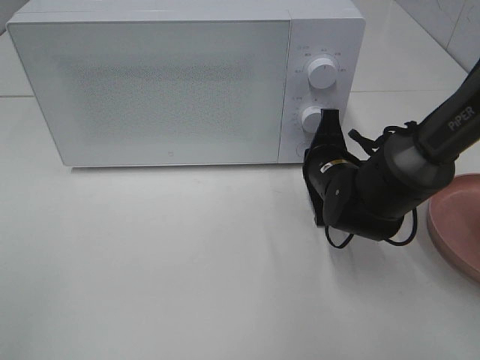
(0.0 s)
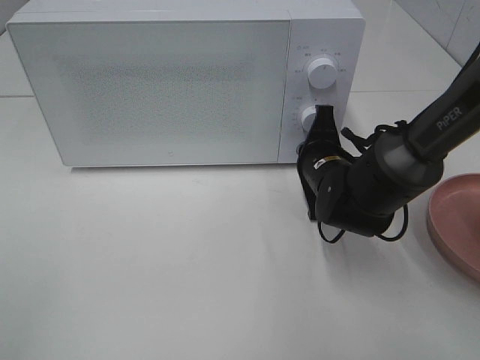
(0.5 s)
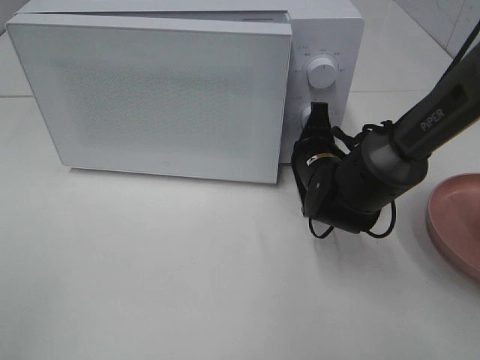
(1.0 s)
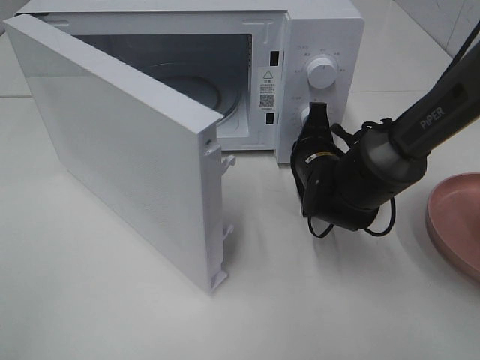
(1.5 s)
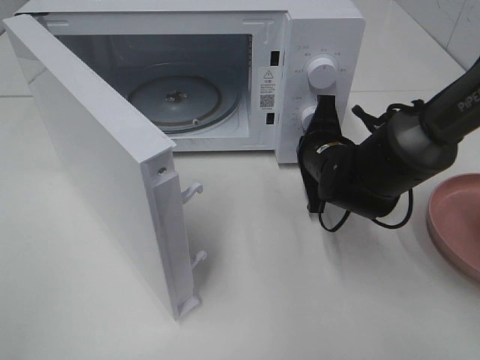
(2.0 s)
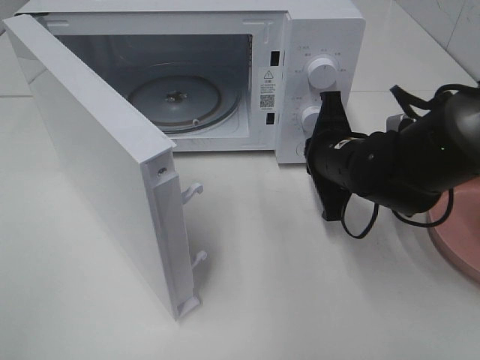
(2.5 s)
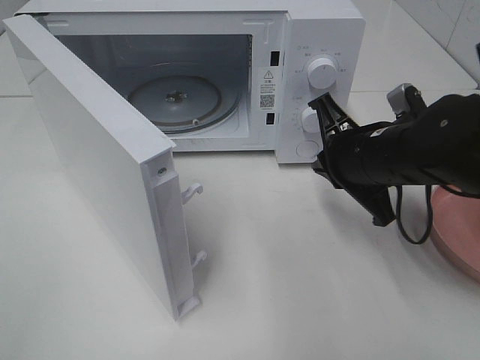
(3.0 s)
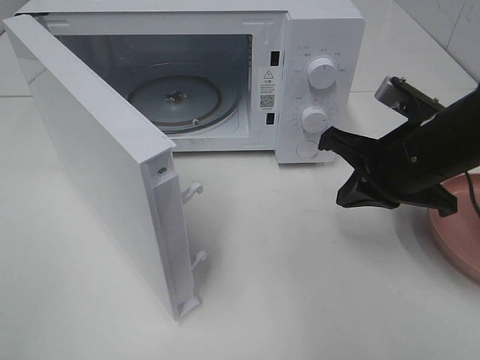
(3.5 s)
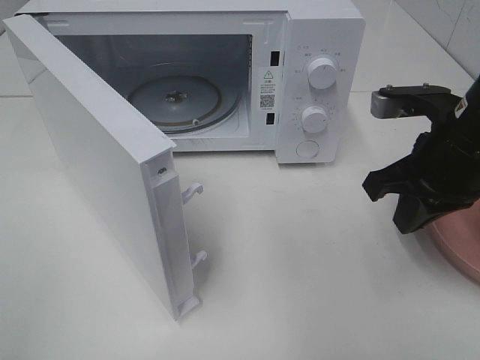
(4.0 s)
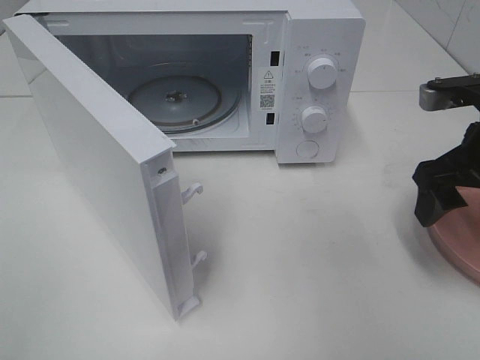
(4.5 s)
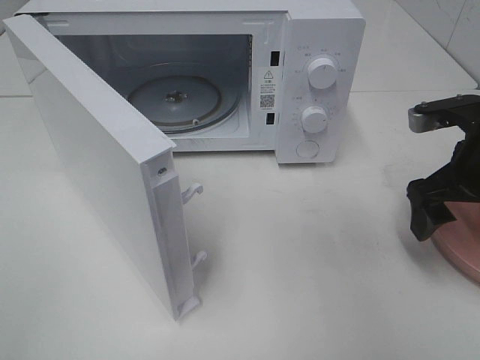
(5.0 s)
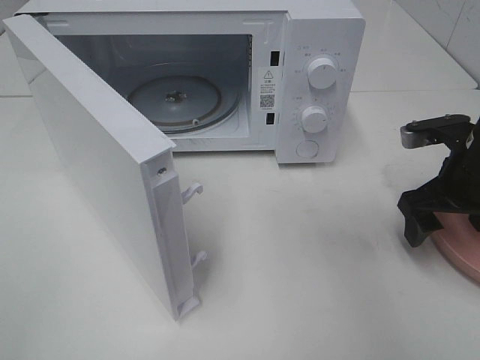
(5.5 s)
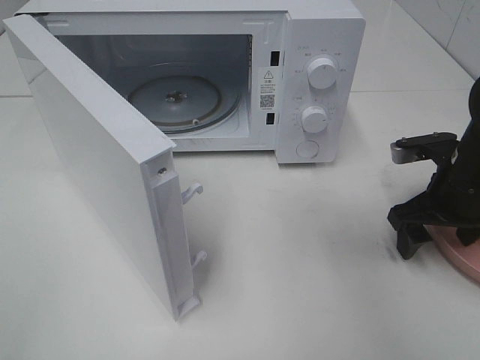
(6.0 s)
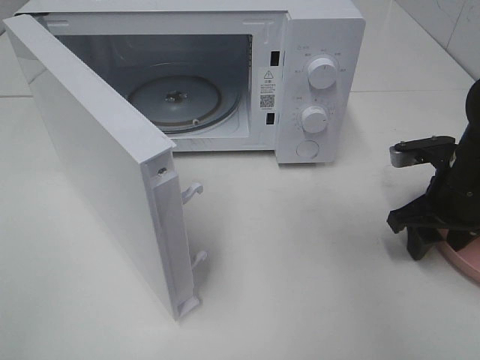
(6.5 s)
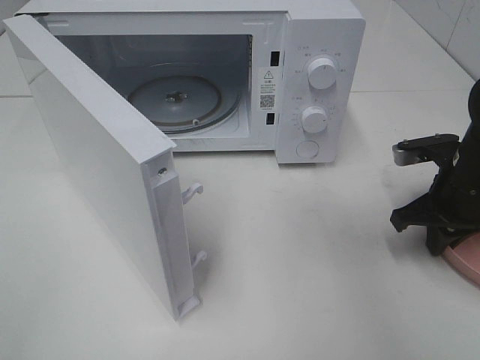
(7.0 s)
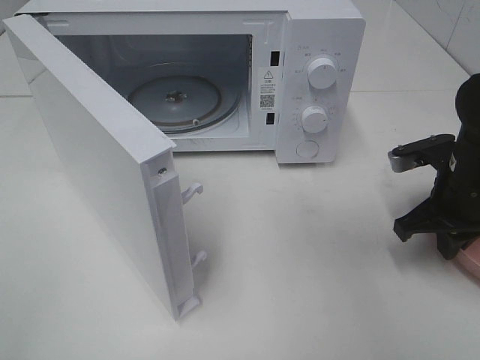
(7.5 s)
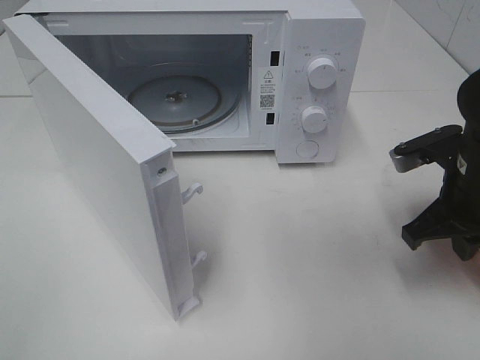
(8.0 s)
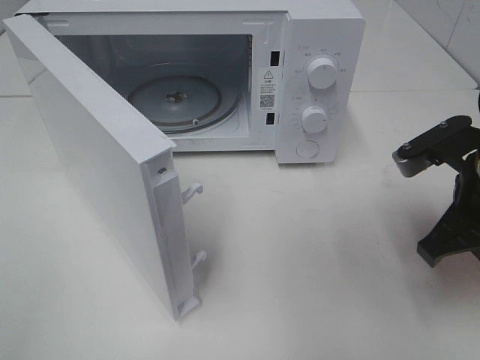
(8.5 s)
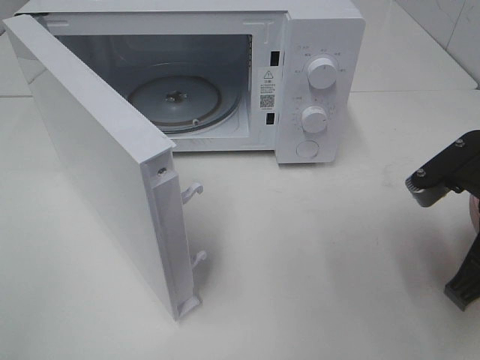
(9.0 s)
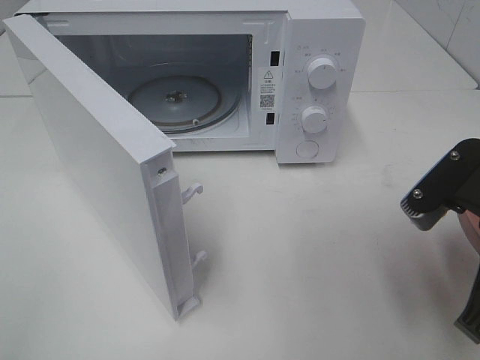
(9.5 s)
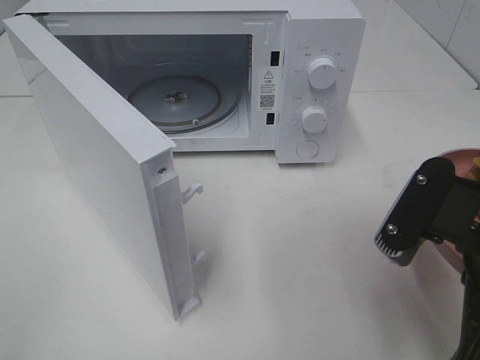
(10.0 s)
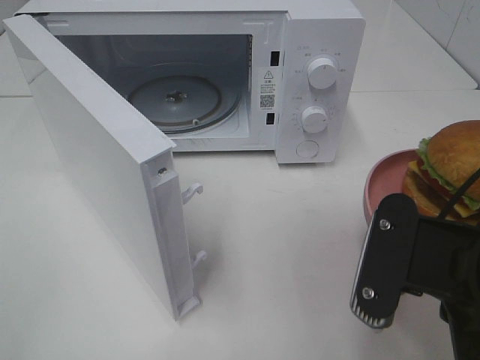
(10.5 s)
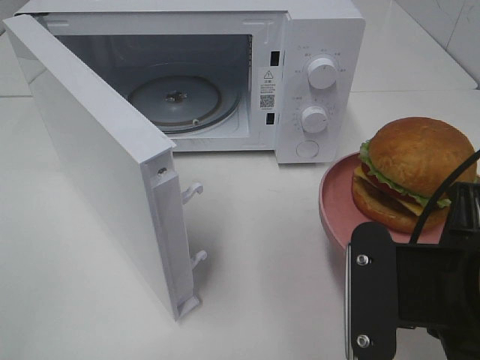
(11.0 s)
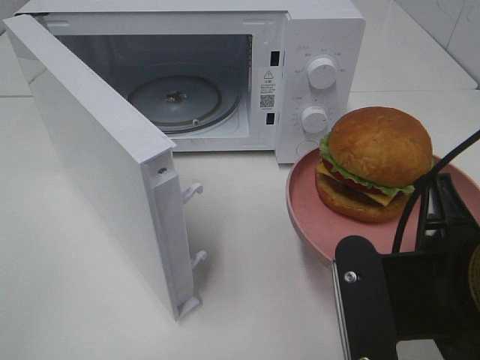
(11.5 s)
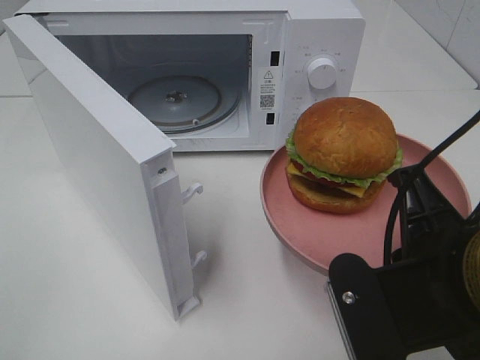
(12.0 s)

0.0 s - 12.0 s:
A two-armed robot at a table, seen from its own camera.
Task of the whole recording: Heat the burger.
Step, 0.0 s - 2.0 s: Right hand: press the switch.
Step, 2.5 s - 7.0 s: Right hand: grab the plate with the hamburger.
2.0 s - 4.0 s: The right gripper heads upward, backward and to the right, covering about 15 cm.
4.0 s - 6.0 s: The right gripper goes roughly 10 cm downward and to the right, and opens.
6.0 s - 8.0 s: The right gripper shifts by approximately 5 cm, and closes up.
8.0 s - 10.0 s: The right gripper goes roughly 15 cm backward and to the left.
10.0 s - 12.0 s: The right gripper moves roughly 5 cm.

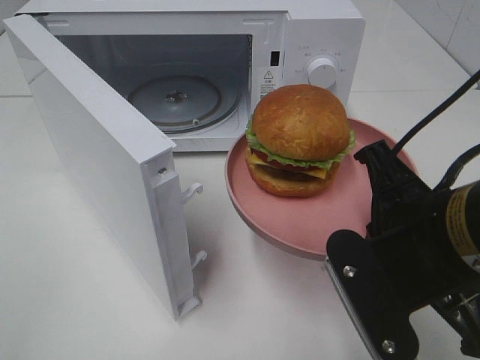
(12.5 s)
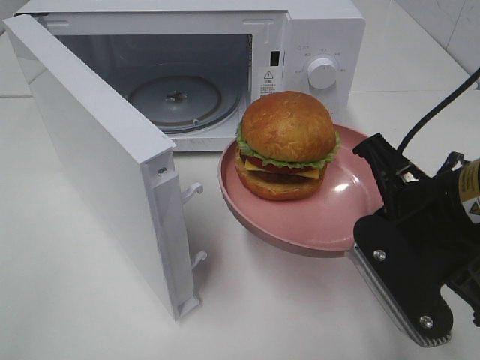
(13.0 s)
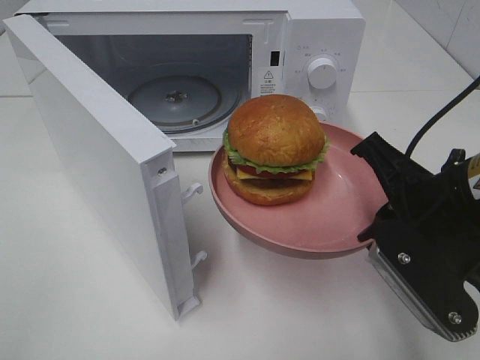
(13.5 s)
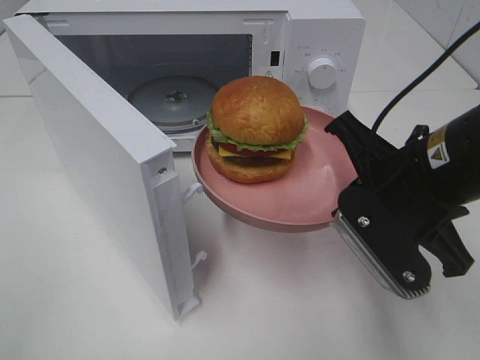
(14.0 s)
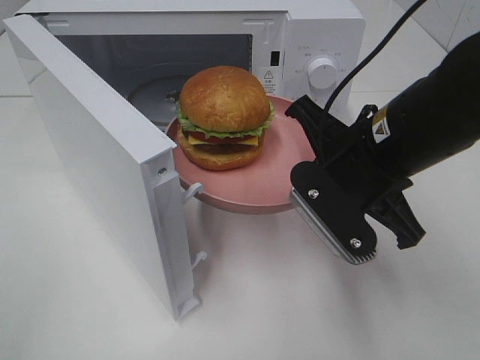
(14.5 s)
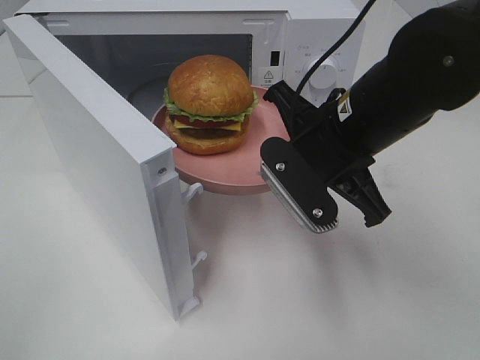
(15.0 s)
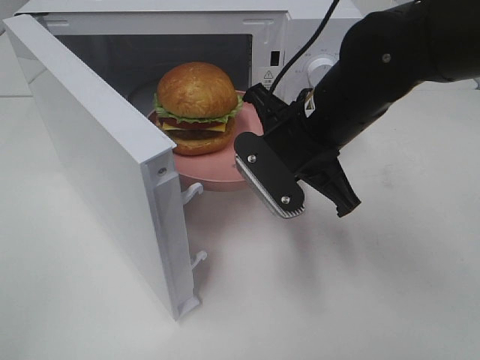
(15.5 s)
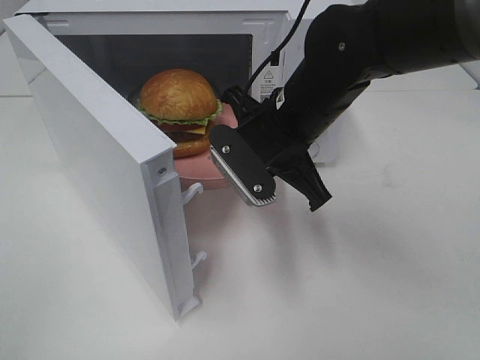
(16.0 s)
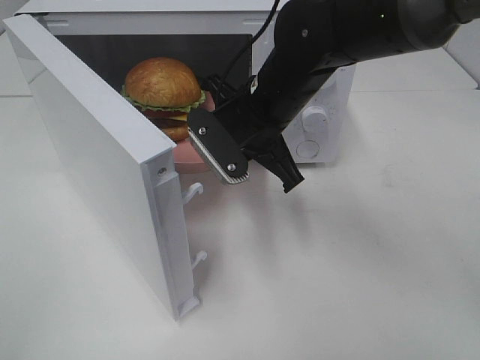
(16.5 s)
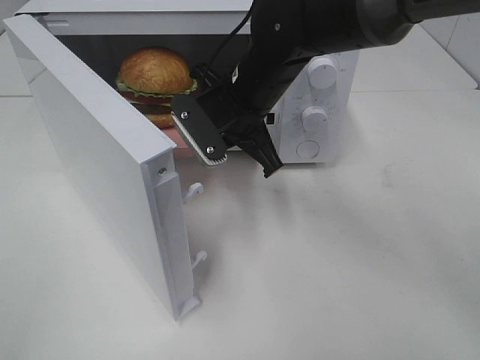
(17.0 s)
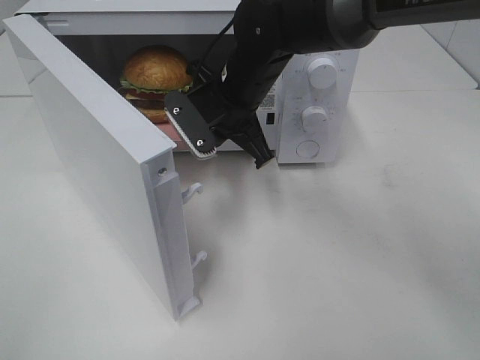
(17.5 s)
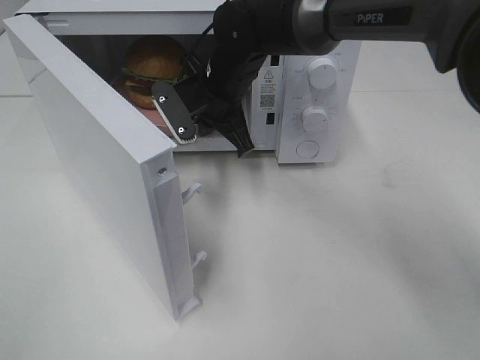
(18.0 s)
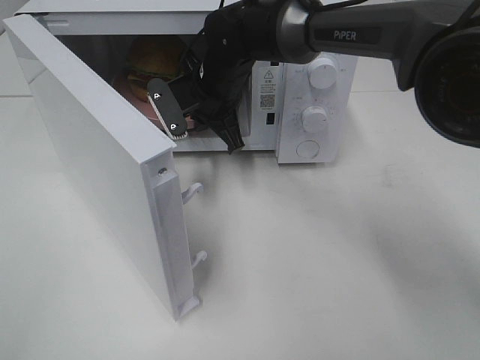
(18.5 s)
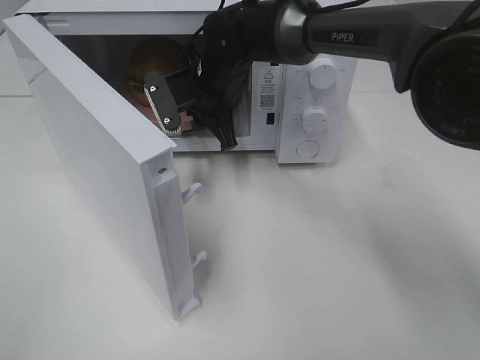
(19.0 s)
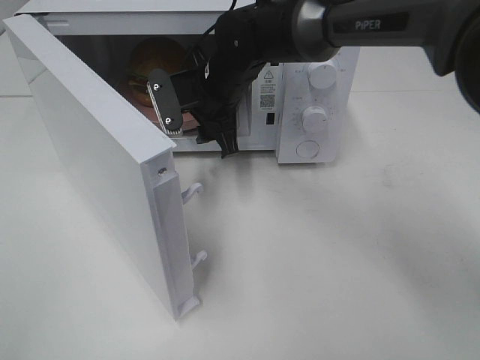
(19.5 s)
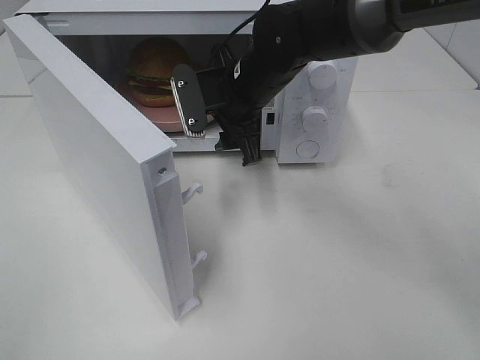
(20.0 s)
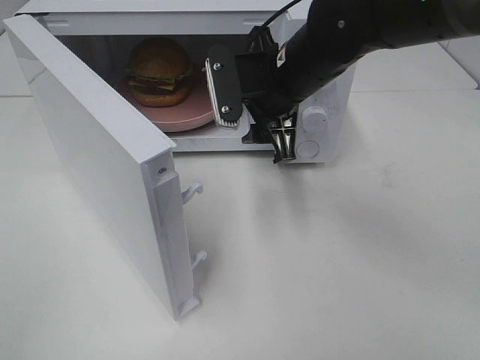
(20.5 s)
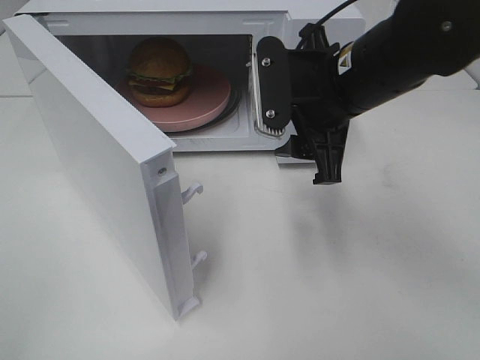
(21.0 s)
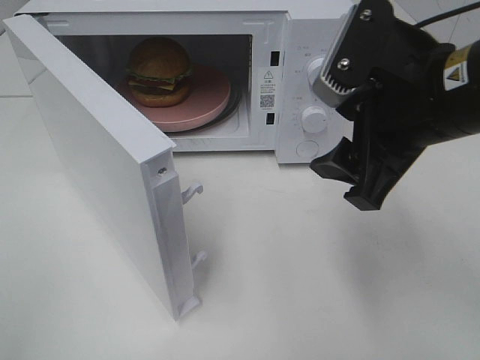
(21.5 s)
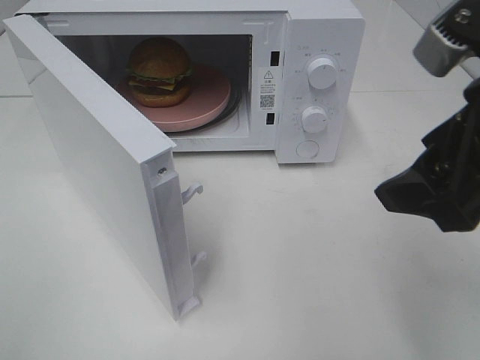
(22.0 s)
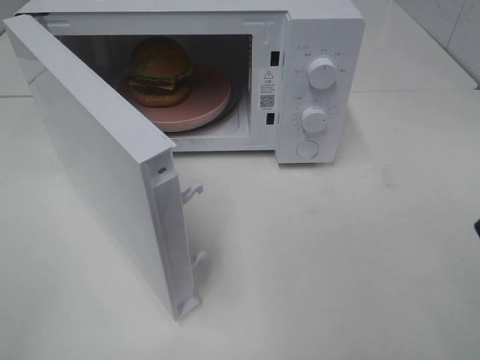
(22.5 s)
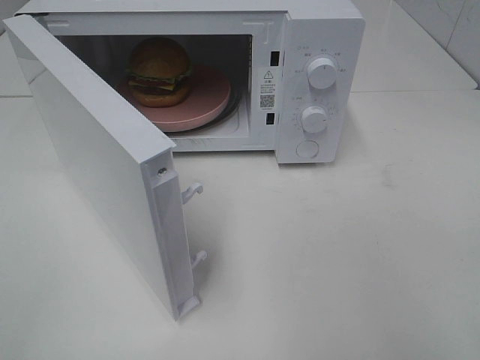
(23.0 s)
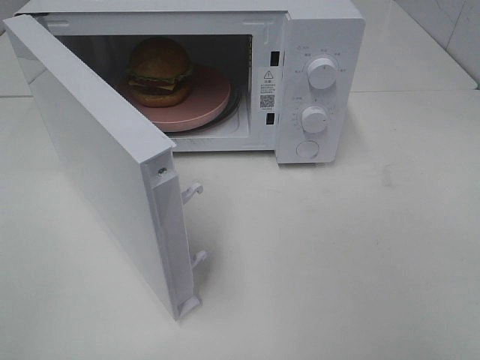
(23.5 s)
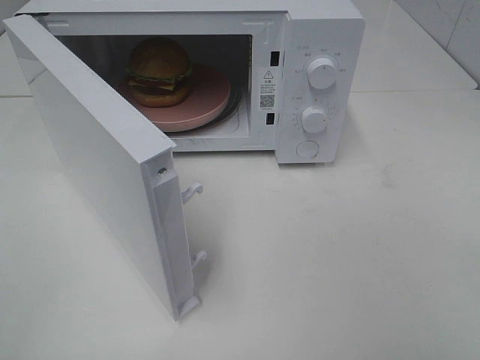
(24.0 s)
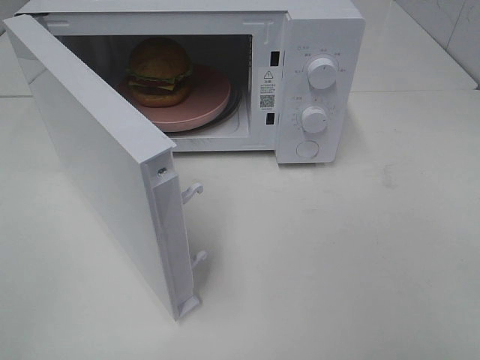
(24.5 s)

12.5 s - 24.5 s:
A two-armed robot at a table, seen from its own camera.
Task of the whole recording: Heat the burger.
Step, 12.5 s - 19.0 s: Right hand: place the plate in the microwave.
12.5 s - 14.5 s: The right gripper shifts some 10 cm forward.
14.5 s - 16.5 s: The right gripper goes about 15 cm forward and to the left.
16.5 s - 18.5 s: The right gripper goes some 10 cm forward and to the left.
18.5 s - 20.5 s: The right gripper travels backward, to the right and upward by roughly 15 cm, and opens its fingers.
20.5 s - 22.5 s: The right gripper shifts roughly 30 cm backward, to the right and upward.

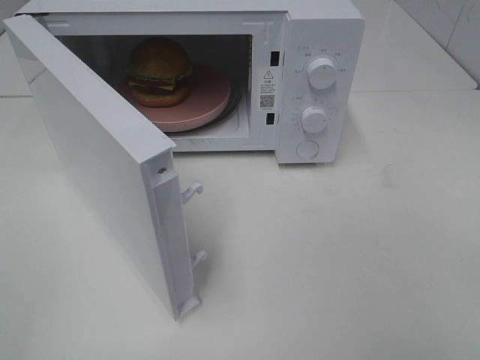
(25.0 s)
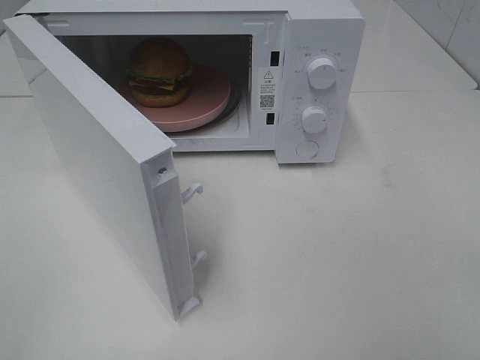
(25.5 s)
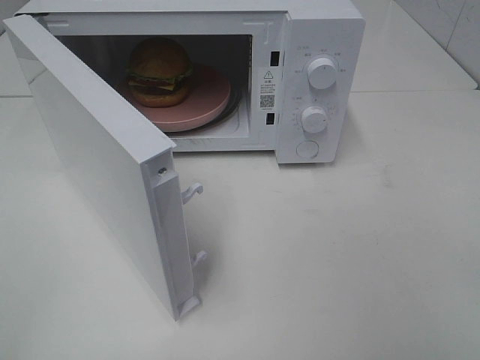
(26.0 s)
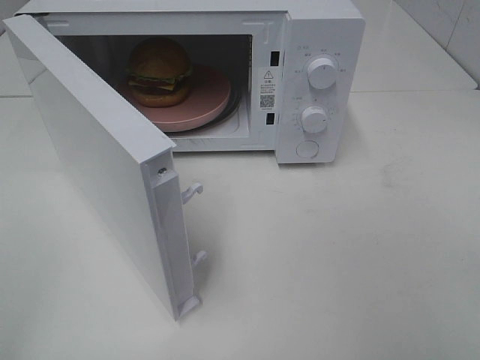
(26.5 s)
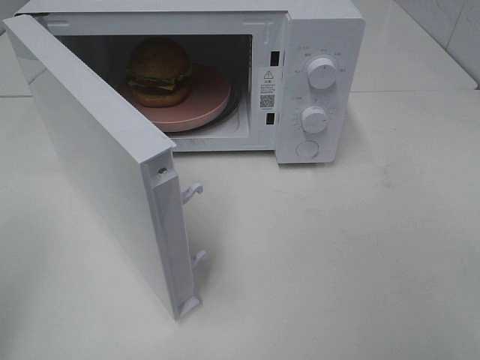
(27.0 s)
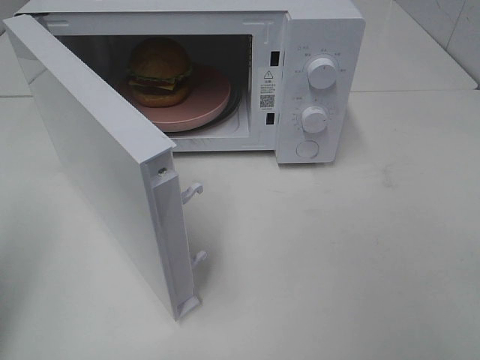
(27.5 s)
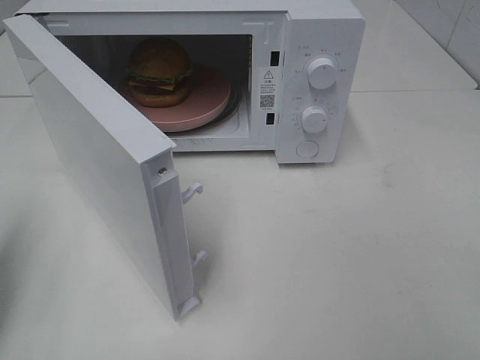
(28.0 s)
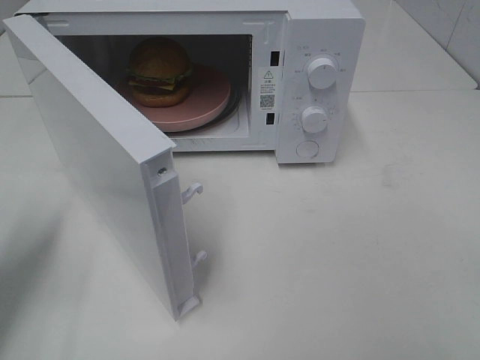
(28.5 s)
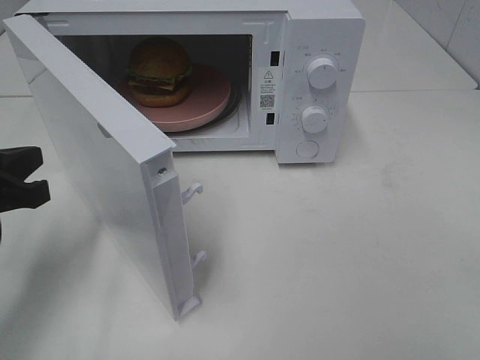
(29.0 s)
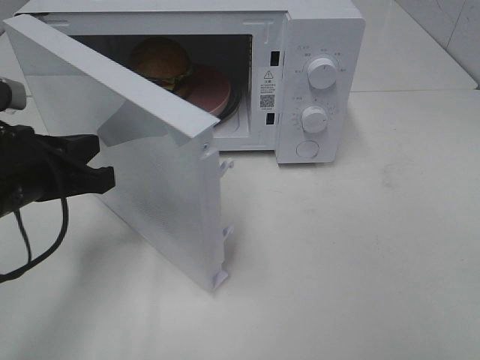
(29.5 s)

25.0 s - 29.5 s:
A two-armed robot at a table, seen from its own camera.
Task of the whole recording: Heat the burger.
27.0 s - 29.5 s: The left gripper shifts roughly 25 cm forward, downward and to the right.